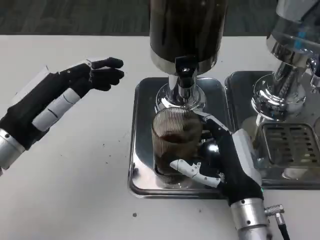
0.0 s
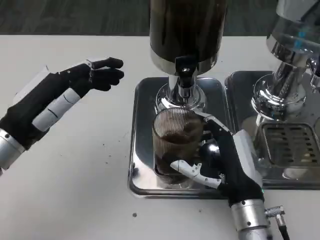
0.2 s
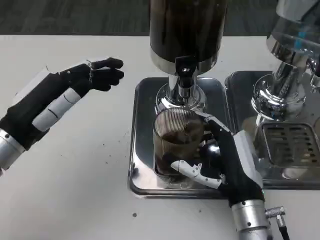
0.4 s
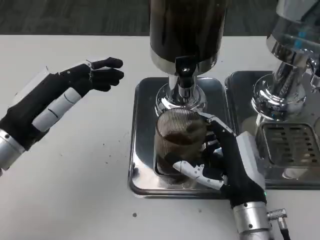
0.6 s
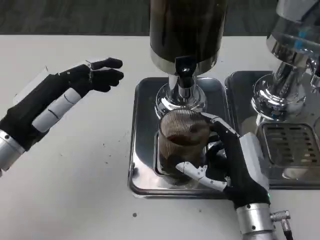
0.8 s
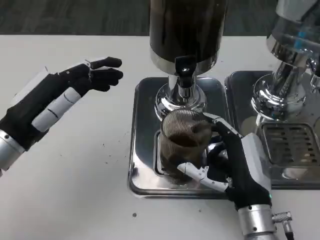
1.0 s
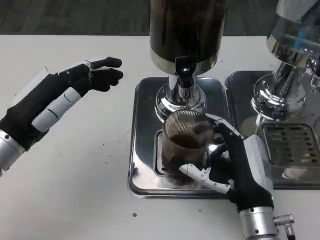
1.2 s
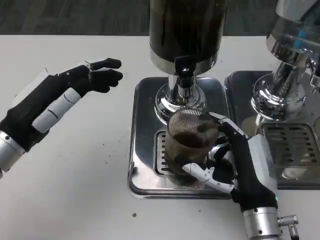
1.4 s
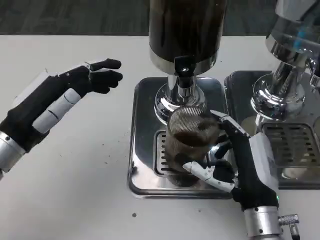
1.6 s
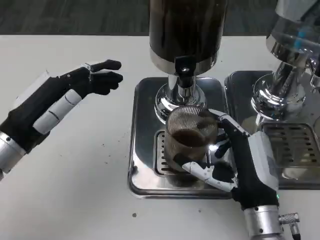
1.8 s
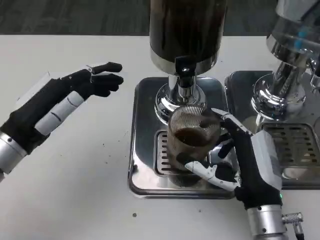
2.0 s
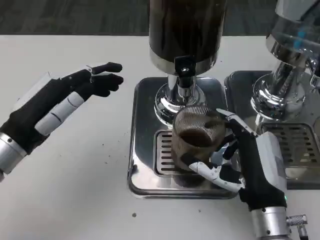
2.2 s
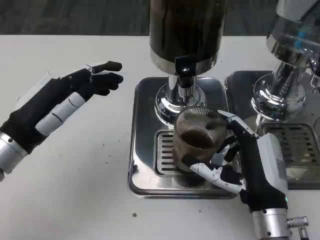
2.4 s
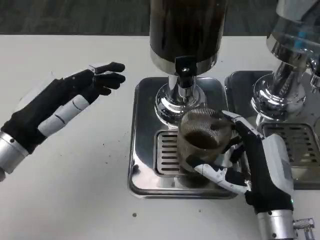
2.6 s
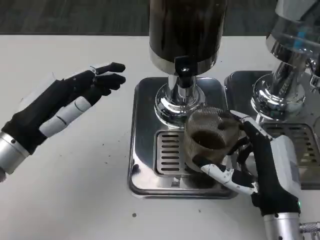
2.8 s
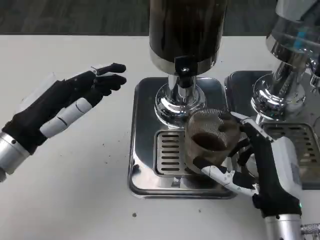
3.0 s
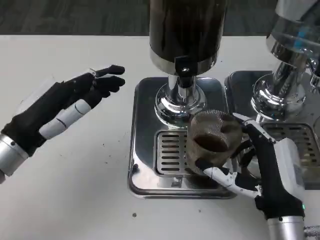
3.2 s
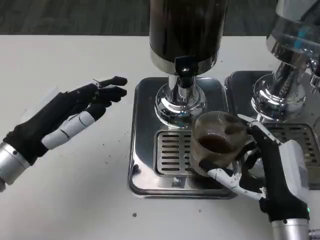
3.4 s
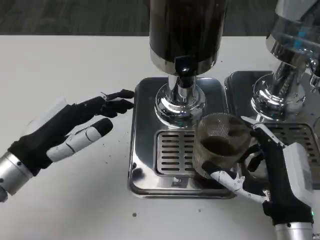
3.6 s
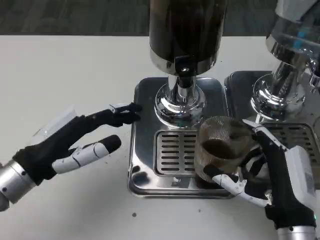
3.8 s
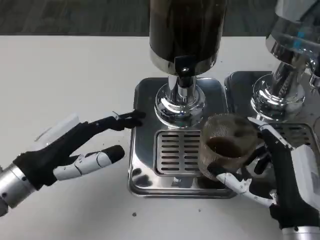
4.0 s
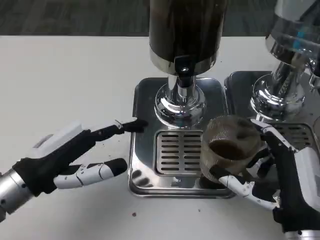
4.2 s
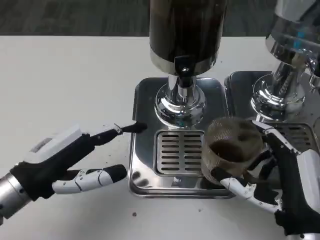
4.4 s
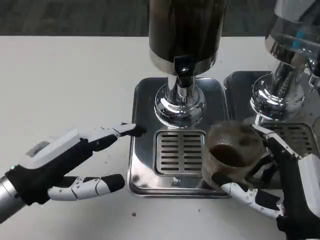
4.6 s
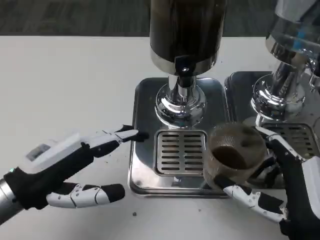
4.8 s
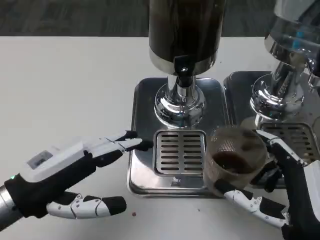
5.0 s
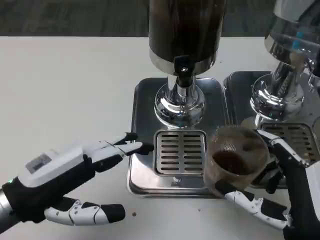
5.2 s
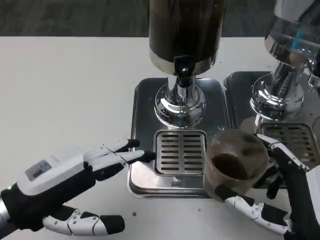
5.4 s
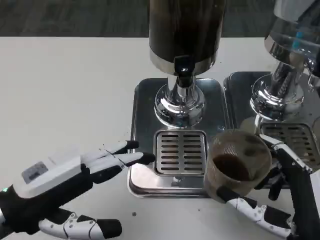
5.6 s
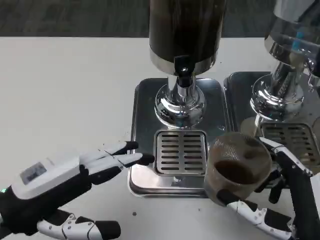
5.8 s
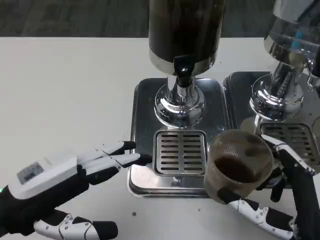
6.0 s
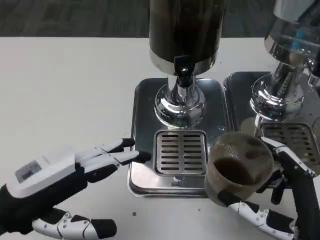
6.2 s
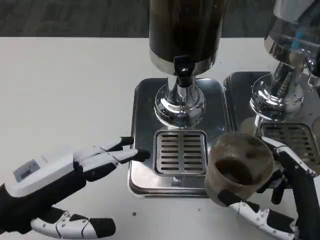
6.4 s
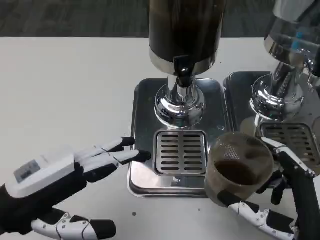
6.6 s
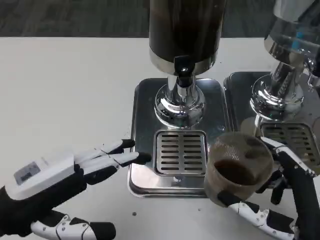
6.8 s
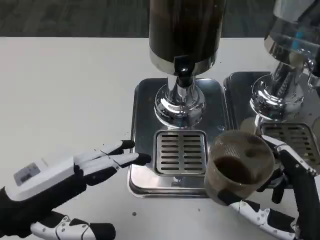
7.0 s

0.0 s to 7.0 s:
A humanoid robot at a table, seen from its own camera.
Task of the whole recording: Grasp the cup under the faucet to collect the drink, then remove the cup.
0.0 to 2.8 s: The hands move only a little.
5.6 to 7.0 s: The two hands keep their place.

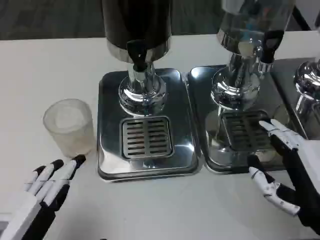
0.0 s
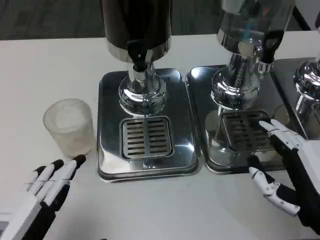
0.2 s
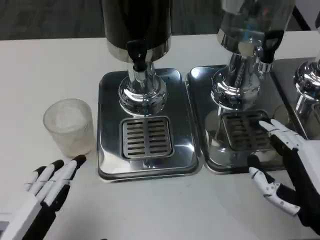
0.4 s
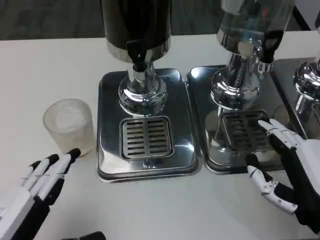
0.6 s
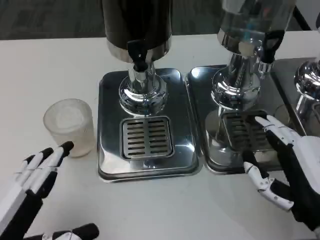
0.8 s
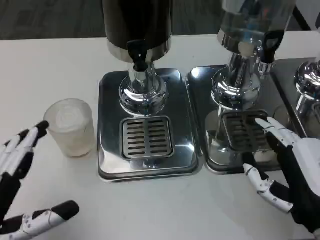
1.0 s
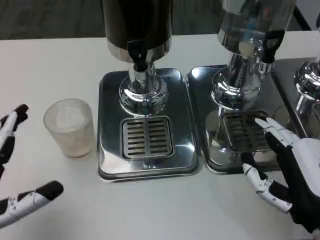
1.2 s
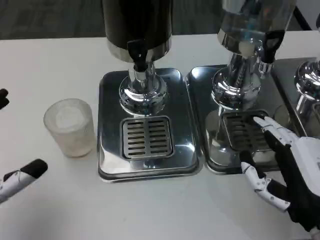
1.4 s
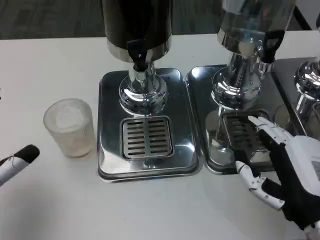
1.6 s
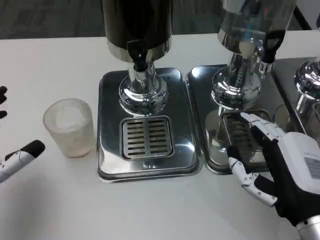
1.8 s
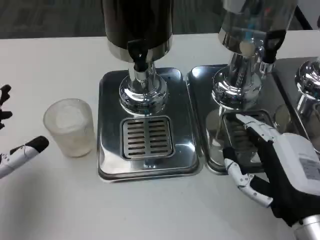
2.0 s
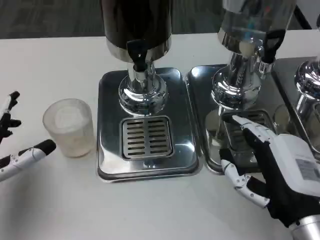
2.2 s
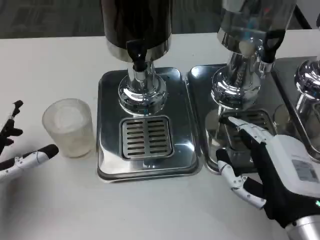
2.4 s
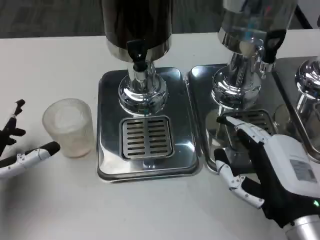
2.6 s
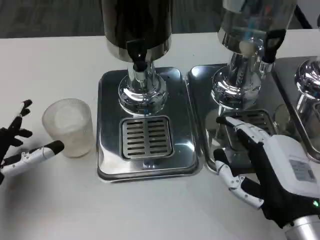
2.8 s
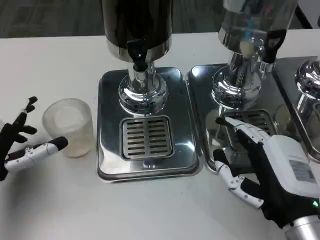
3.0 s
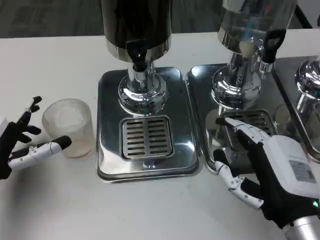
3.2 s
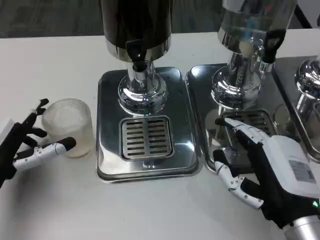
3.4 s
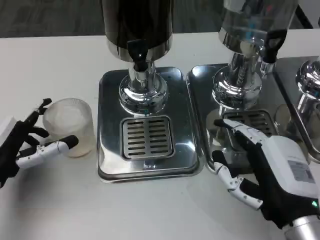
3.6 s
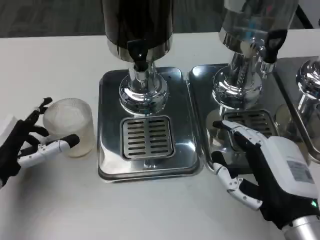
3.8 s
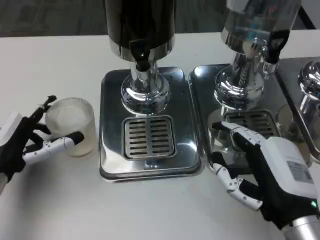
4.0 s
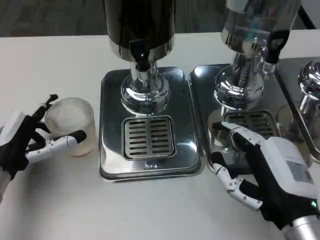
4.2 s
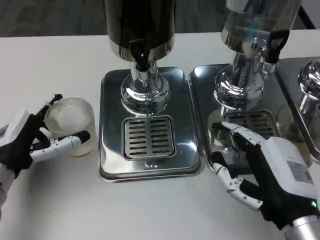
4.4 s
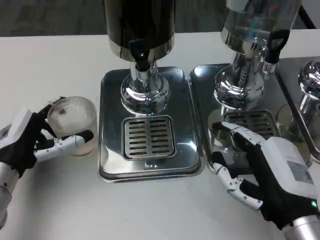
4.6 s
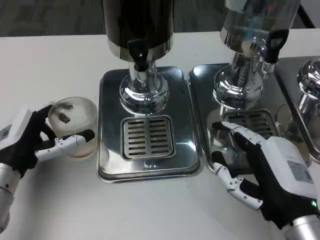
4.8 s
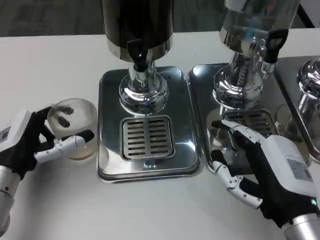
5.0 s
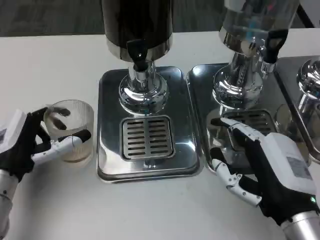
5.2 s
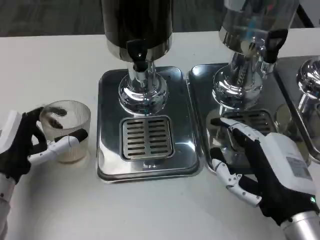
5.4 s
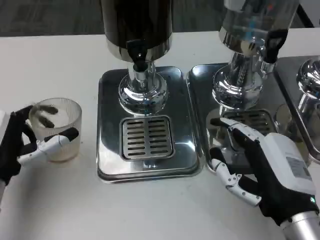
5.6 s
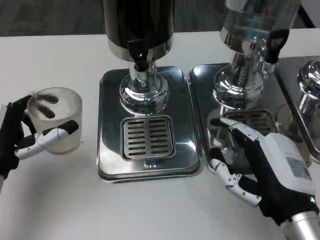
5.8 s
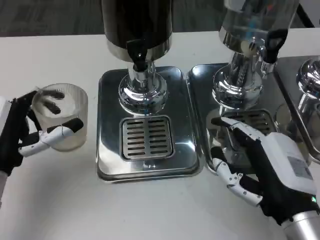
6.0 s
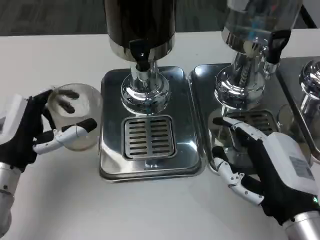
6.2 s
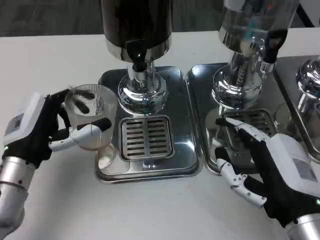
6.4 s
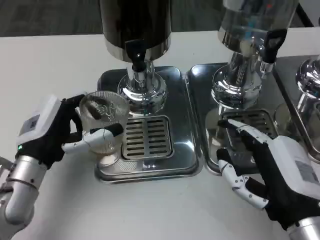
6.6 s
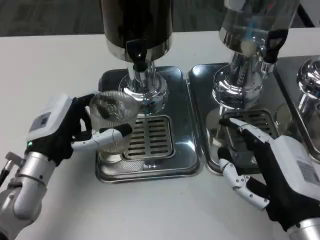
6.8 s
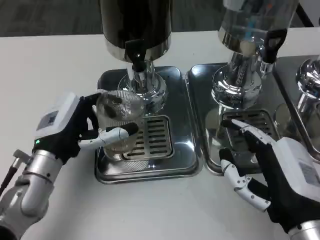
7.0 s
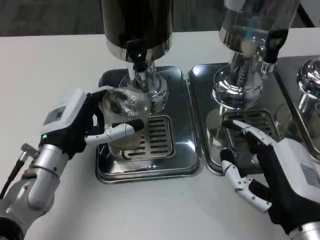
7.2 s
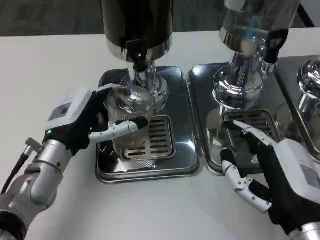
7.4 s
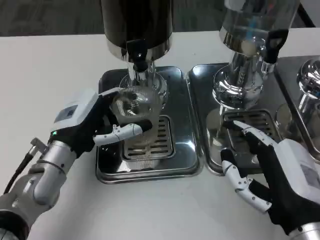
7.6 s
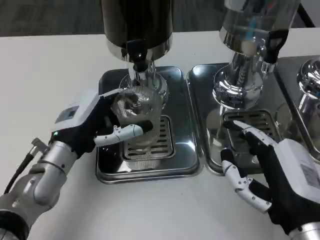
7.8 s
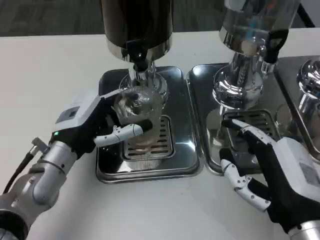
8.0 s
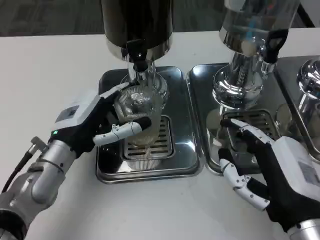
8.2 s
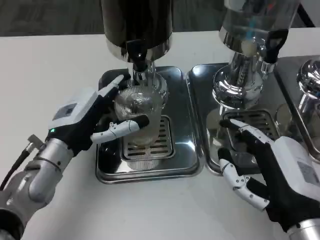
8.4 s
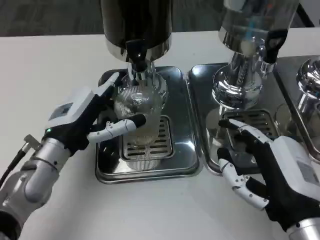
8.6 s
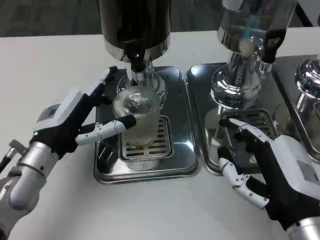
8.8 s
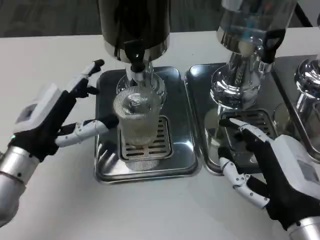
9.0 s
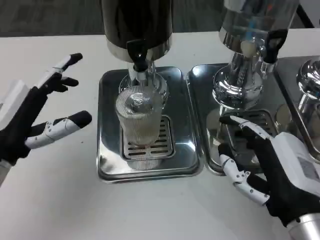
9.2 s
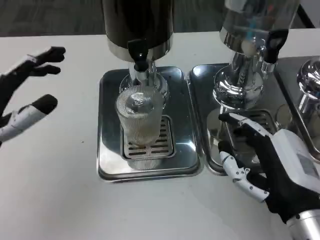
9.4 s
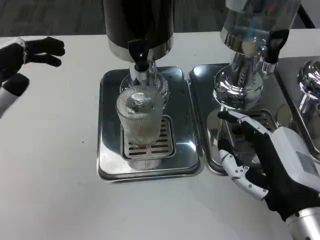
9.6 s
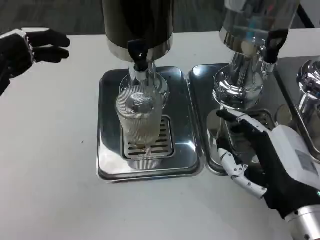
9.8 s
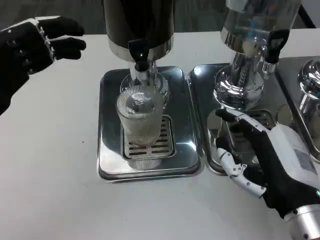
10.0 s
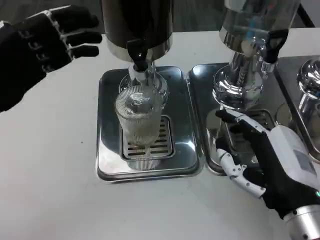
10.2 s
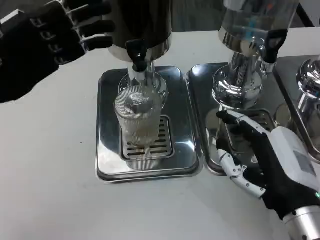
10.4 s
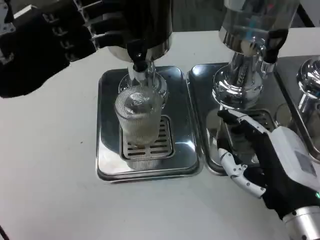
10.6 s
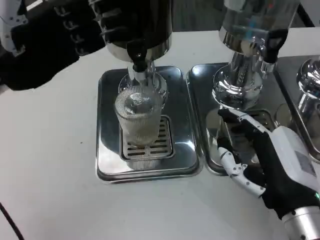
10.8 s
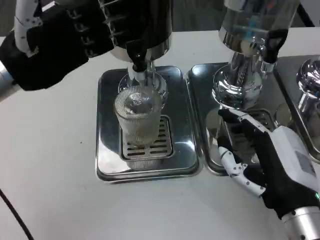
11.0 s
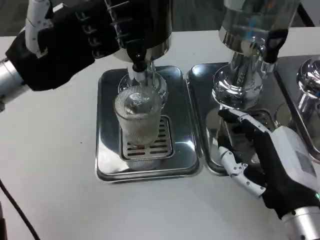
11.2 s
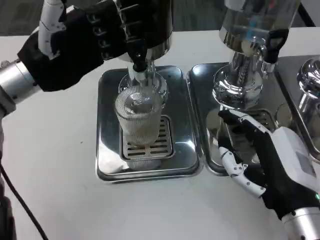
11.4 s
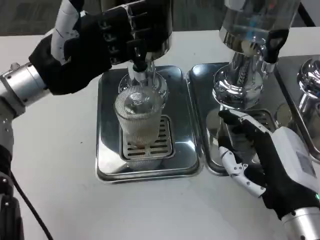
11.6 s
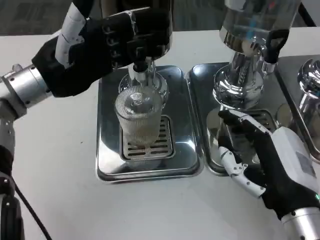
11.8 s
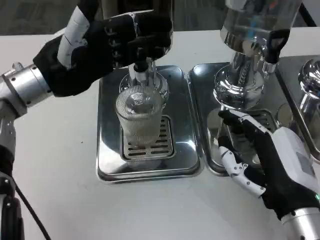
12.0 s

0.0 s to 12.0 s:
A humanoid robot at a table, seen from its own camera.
Task of the whole recording: Grasp the cup under the faucet to collect the drink, then remove the cup.
0.0 to 1.6 s: The left hand travels forward and to the left by roughly 10 cm.
1.6 to 3.0 s: The left hand goes about 5 cm forward.
6.0 to 7.6 s: The left hand travels to the right and forward by approximately 10 cm.
7.6 to 9.0 s: The left hand moves roughly 5 cm.
9.0 to 10.4 s: The left hand moves upward, to the left and forward, approximately 15 cm.
10.4 to 12.0 s: The left hand is displaced to the right by approximately 5 cm.

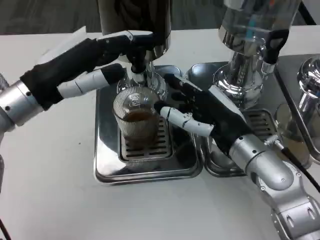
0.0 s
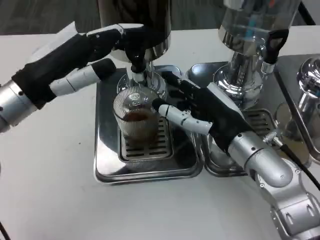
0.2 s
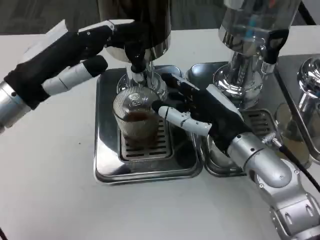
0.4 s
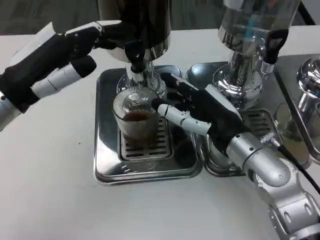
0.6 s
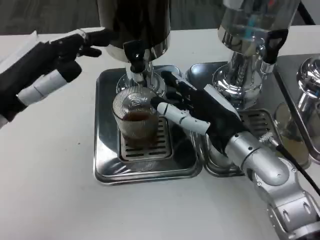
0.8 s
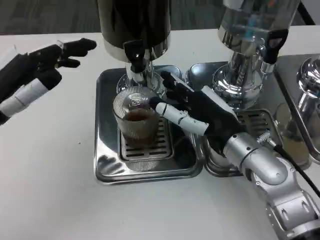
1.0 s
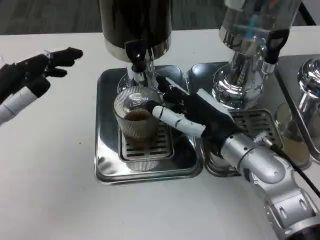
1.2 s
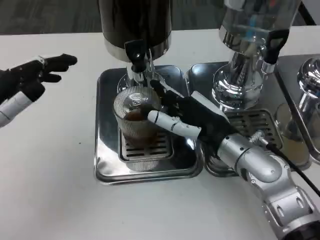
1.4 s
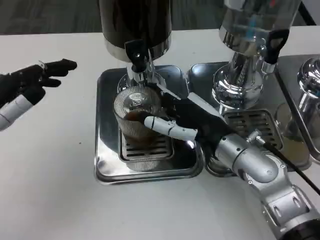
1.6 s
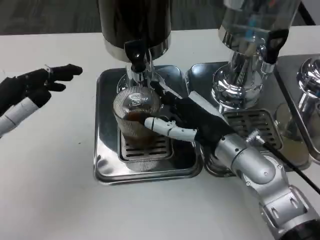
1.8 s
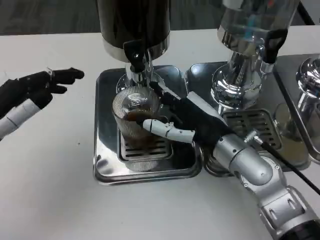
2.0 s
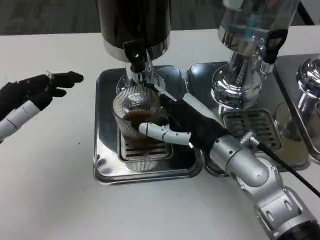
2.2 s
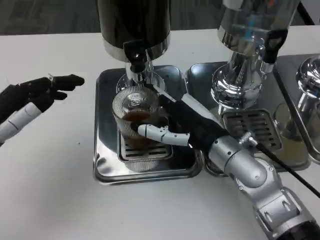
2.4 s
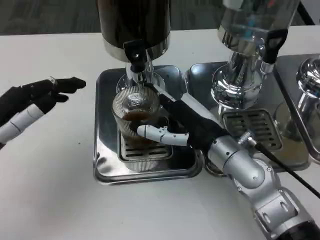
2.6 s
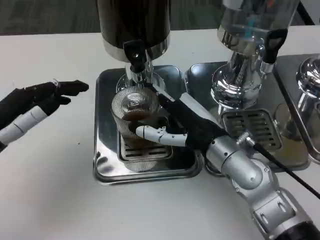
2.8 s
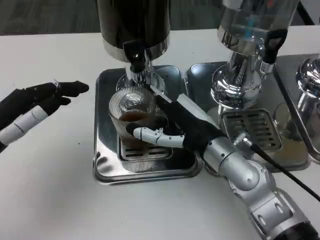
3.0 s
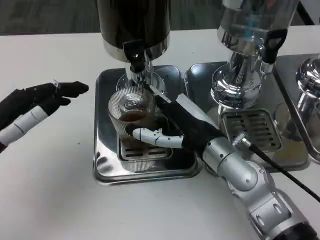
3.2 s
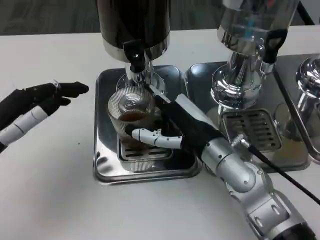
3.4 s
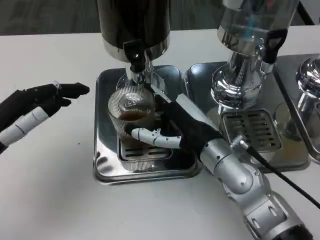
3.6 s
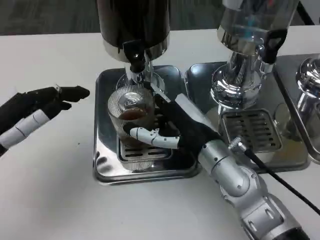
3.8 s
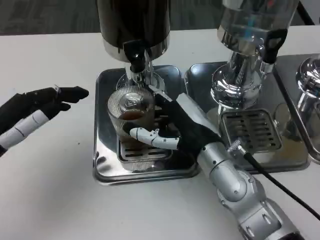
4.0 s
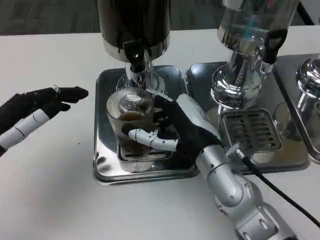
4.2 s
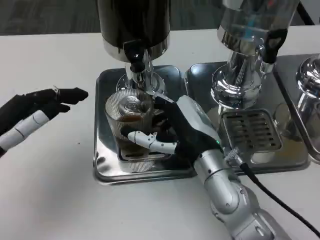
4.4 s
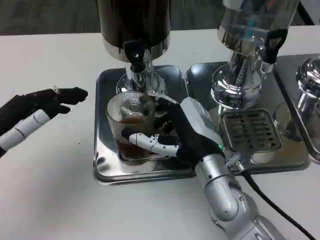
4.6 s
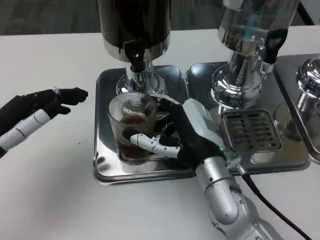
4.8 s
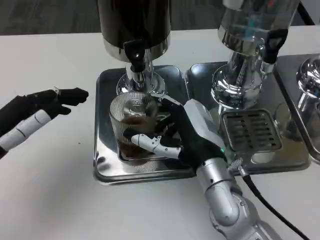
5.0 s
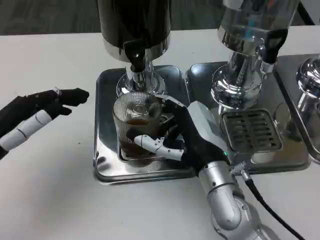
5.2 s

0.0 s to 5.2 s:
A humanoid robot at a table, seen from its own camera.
Task of the whole recording: Grasp the cup under the faucet to collect the drink, then remove the cup.
0.0 to 1.8 s: The left hand travels to the left and backward by roughly 10 cm.
3.4 to 5.2 s: The right hand changes place by roughly 5 cm.
